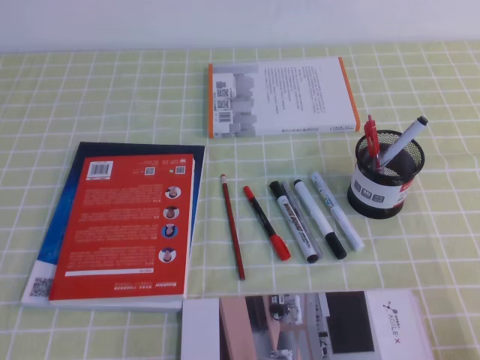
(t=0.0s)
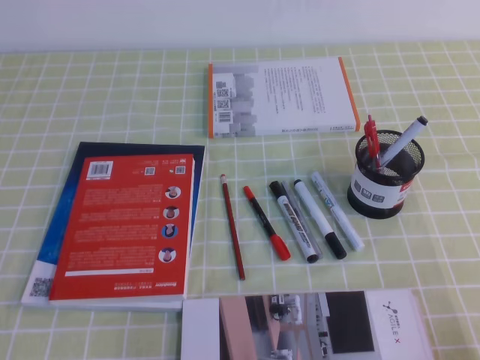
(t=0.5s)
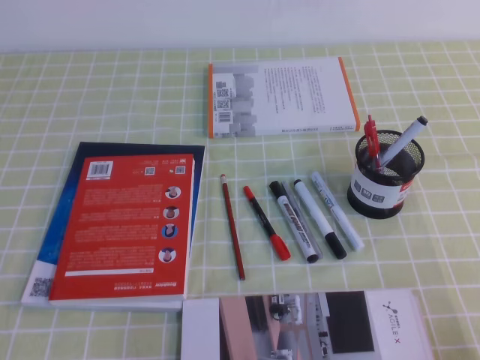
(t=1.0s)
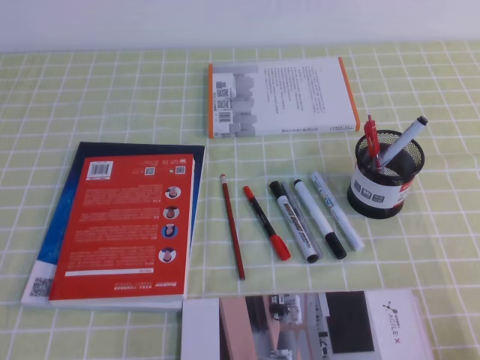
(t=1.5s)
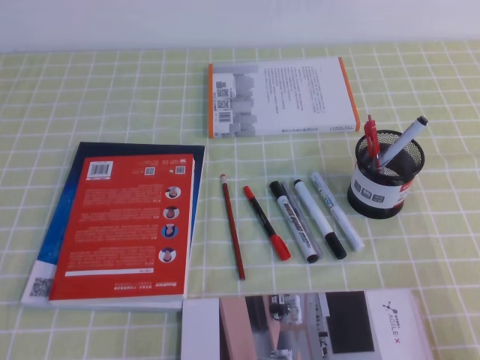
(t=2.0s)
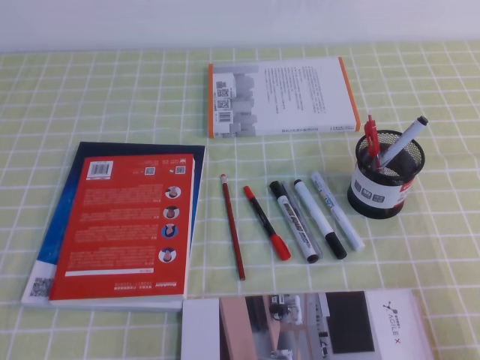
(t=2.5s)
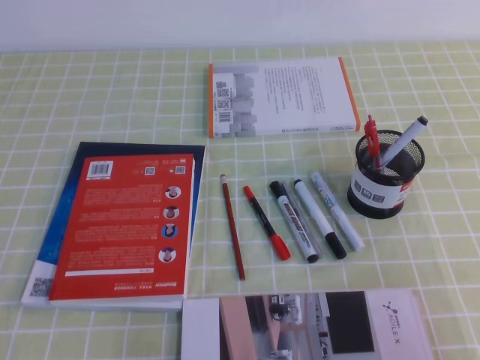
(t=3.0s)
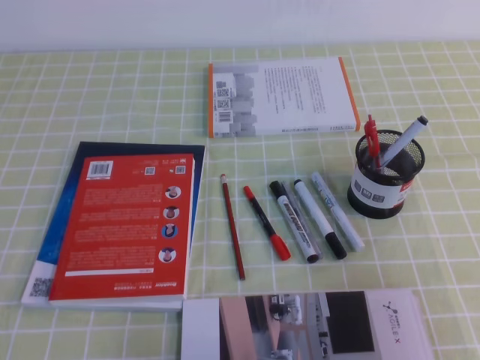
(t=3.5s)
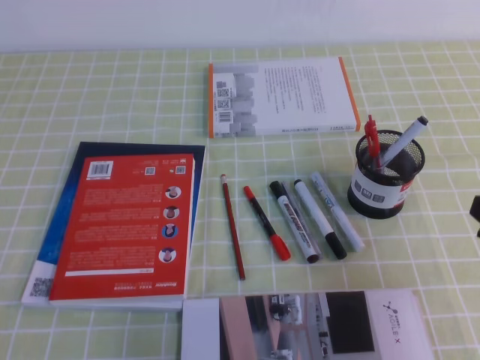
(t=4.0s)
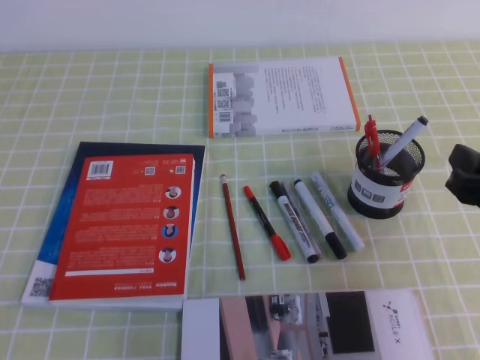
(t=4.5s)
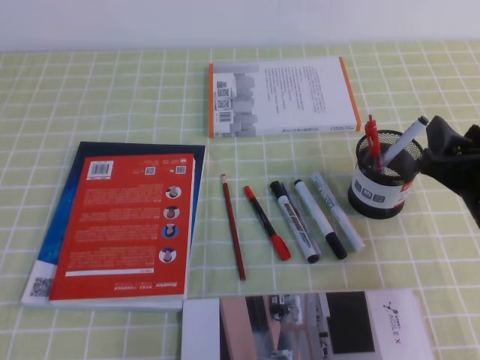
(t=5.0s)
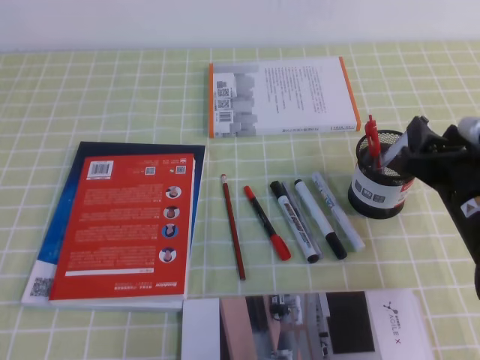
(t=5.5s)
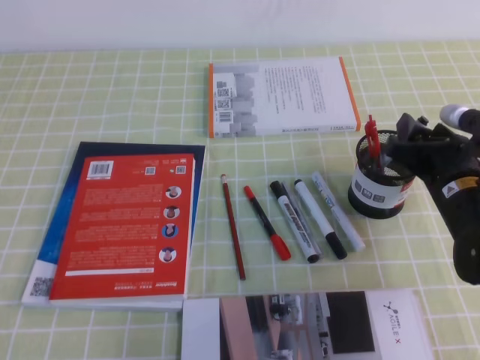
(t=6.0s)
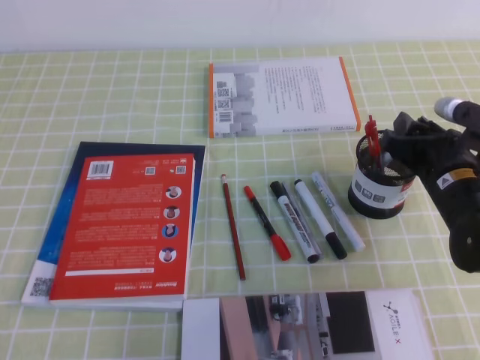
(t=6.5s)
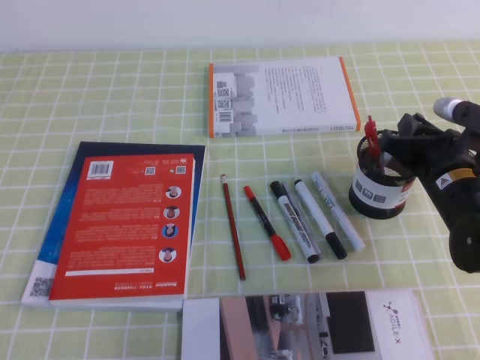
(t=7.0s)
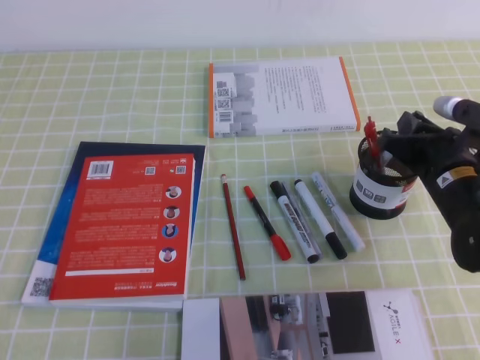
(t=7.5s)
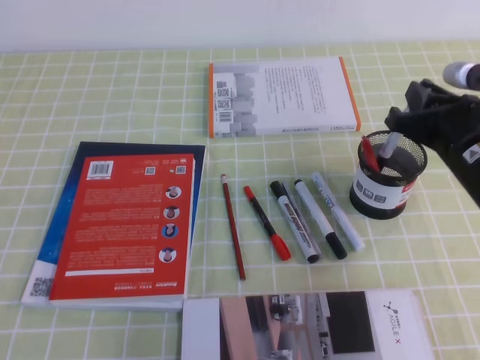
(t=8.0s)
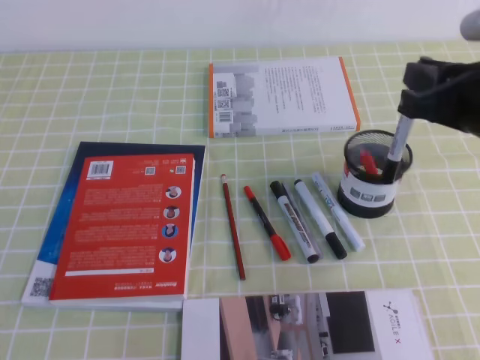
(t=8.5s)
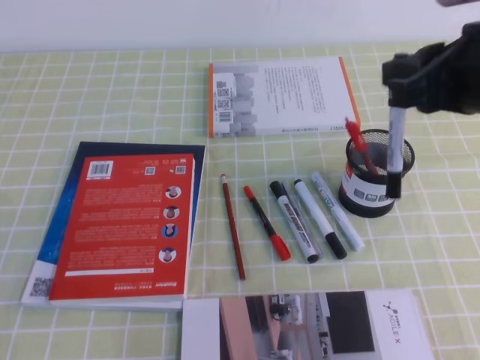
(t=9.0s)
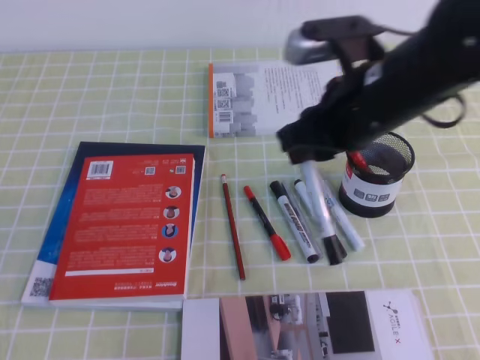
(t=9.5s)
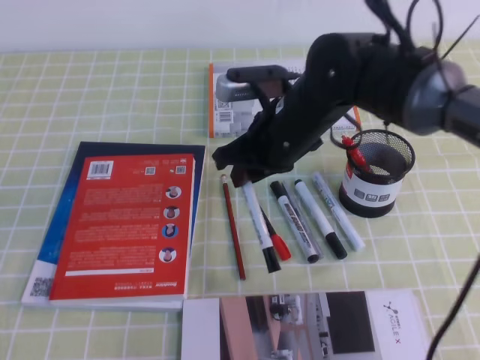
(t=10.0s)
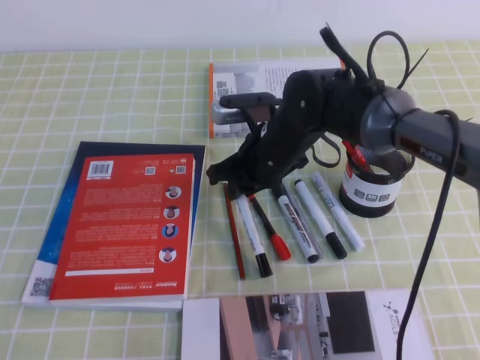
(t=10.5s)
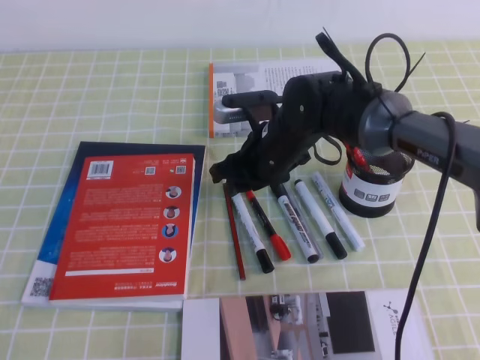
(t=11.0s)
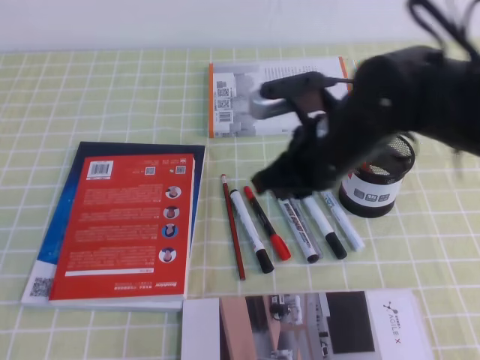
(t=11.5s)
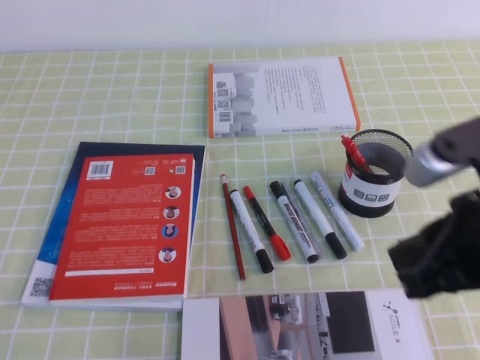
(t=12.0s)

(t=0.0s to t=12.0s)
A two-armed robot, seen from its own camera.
Step, t=0.0s - t=4.5s: Pick up the pen with the right gripper.
Step, t=5.0s - t=6.5s: Place the pen on the table with the right gripper.
t=2.0s - t=4.0s: The right gripper shifts some 15 cm forward and upward.
t=4.0s - t=6.0s: The right gripper goes approximately 20 cm forward, downward and to the left, and opens its fingers.
t=6.0s - t=8.0s: The right gripper is displaced upward by some 5 cm, and closes.
t=8.0s - t=10.0s: The right gripper moves to the left, roughly 15 cm.
t=10.0s - t=12.0s: The right gripper goes roughly 25 cm backward and to the right, and opens, then closes again.

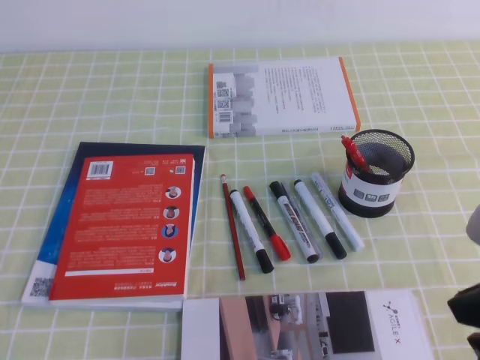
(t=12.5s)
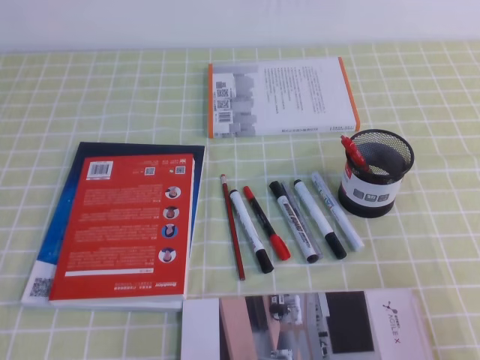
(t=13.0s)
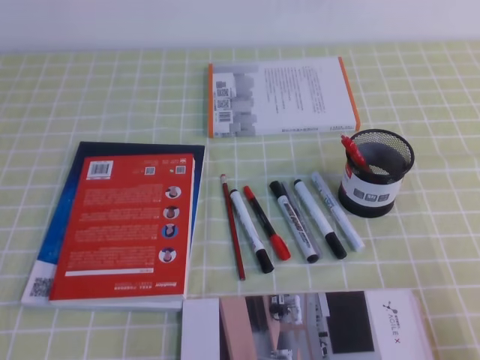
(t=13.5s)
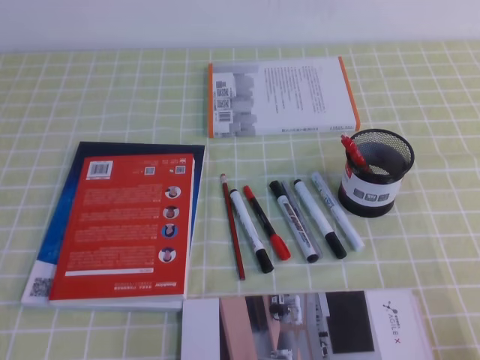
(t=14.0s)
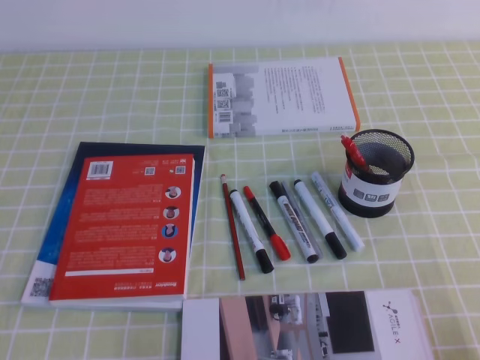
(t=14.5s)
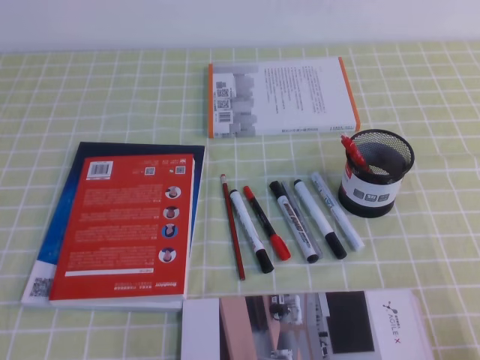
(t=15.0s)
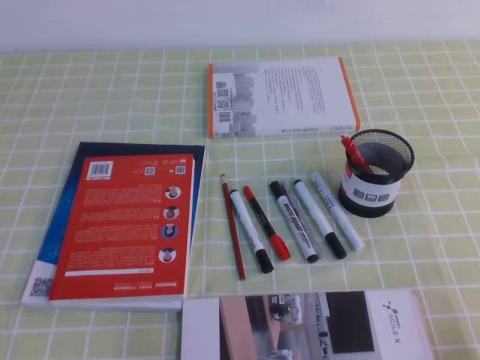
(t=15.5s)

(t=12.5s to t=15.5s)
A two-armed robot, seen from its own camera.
t=12.5s - t=14.0s: The right gripper travels downward, to the right and backward by approximately 20 cm.
t=14.0s - t=15.5s: The two grippers keep their place.
